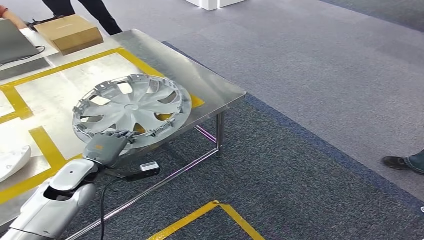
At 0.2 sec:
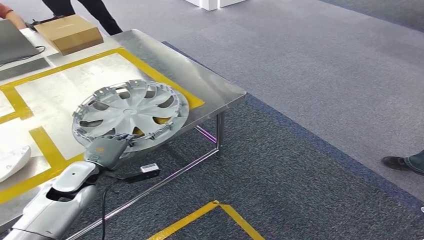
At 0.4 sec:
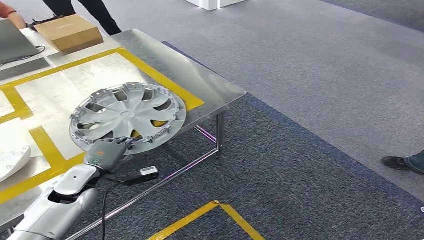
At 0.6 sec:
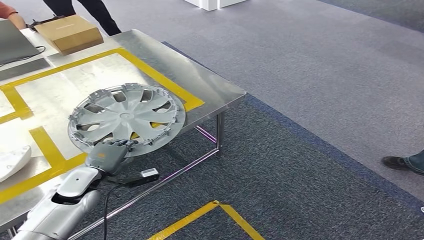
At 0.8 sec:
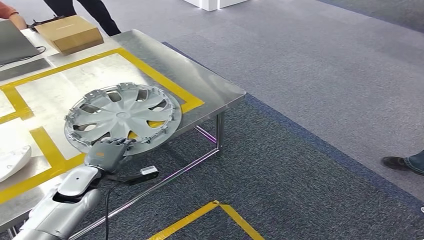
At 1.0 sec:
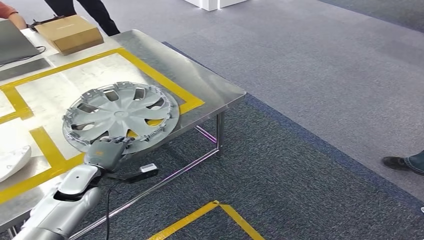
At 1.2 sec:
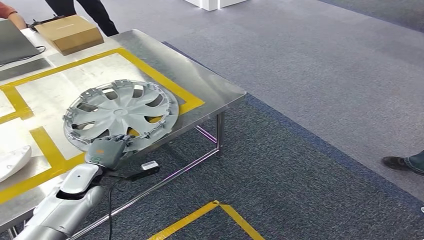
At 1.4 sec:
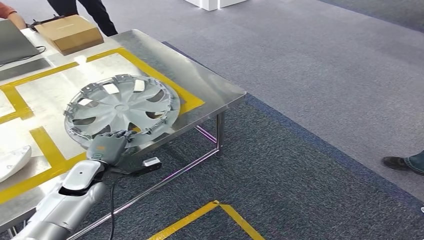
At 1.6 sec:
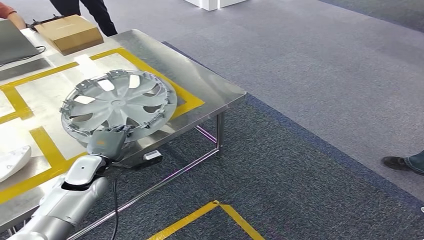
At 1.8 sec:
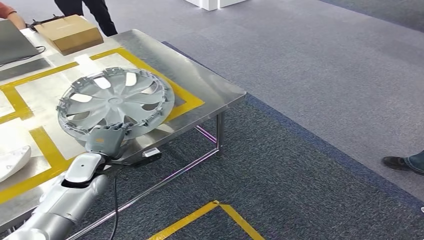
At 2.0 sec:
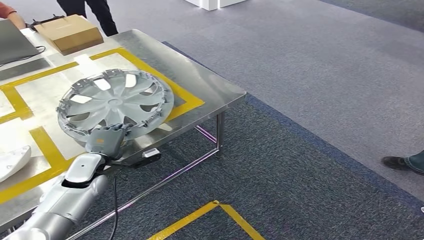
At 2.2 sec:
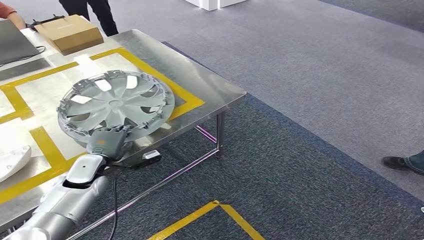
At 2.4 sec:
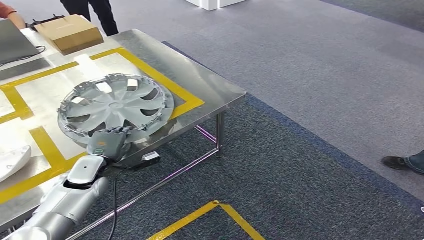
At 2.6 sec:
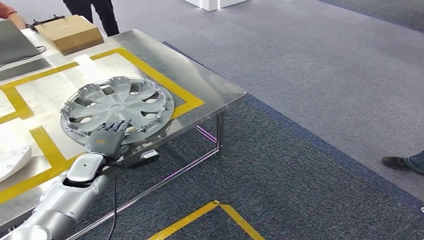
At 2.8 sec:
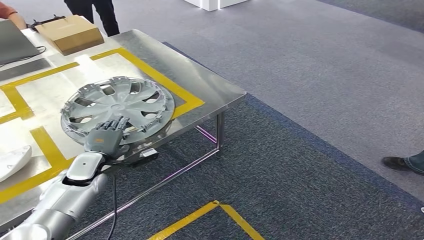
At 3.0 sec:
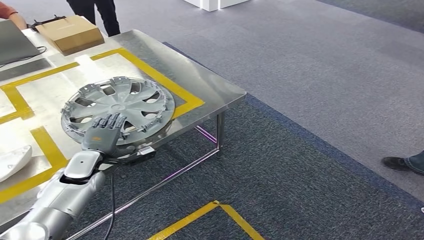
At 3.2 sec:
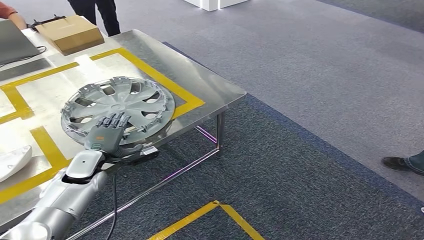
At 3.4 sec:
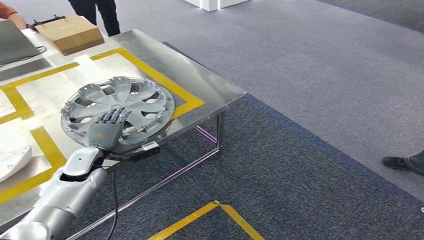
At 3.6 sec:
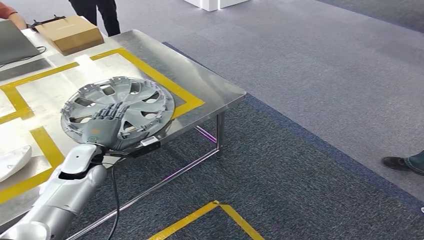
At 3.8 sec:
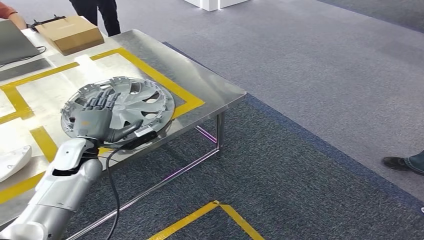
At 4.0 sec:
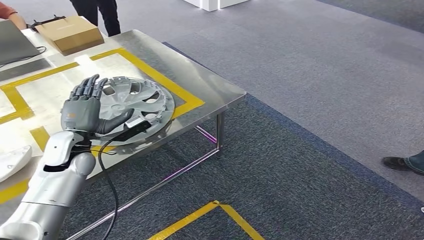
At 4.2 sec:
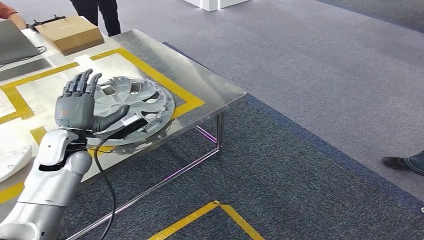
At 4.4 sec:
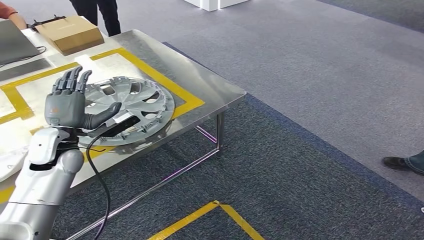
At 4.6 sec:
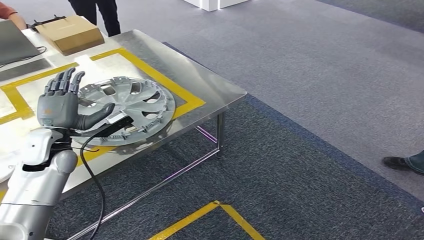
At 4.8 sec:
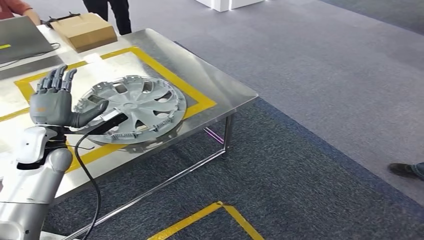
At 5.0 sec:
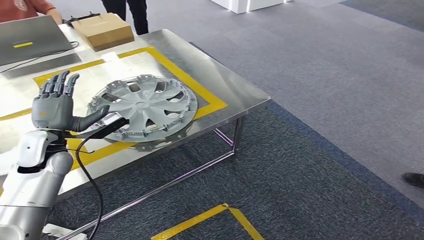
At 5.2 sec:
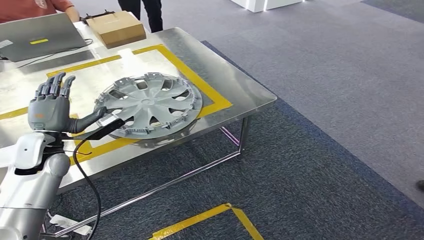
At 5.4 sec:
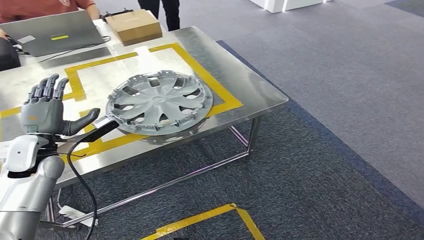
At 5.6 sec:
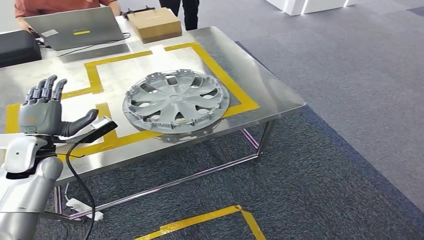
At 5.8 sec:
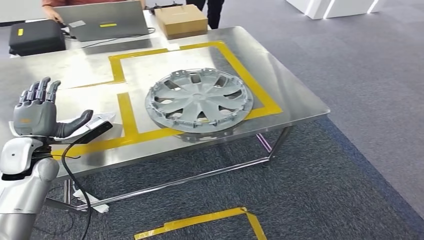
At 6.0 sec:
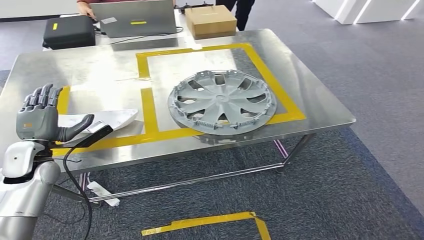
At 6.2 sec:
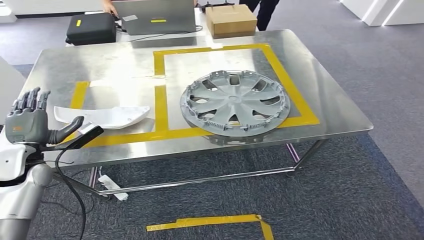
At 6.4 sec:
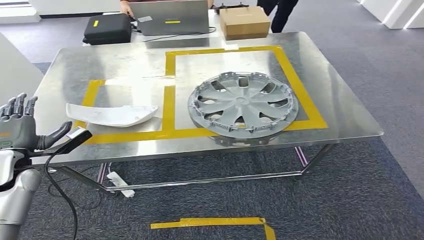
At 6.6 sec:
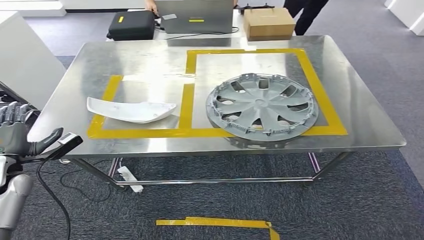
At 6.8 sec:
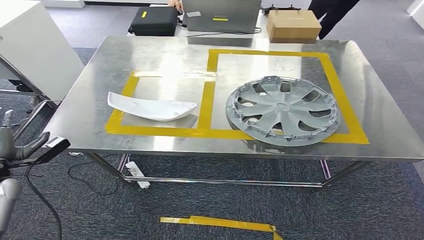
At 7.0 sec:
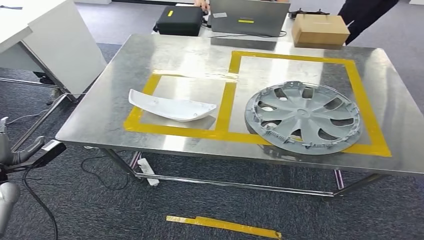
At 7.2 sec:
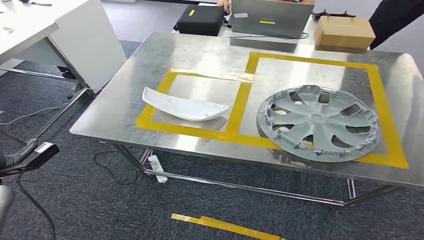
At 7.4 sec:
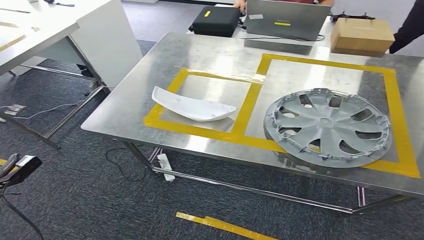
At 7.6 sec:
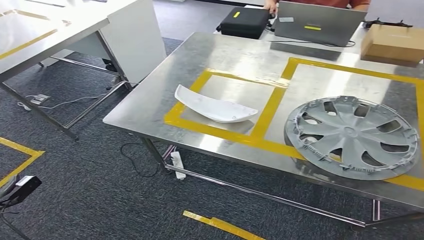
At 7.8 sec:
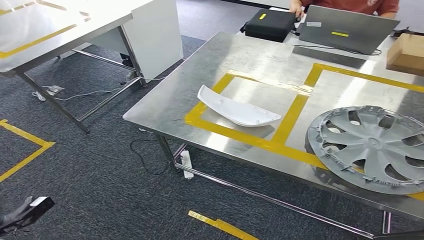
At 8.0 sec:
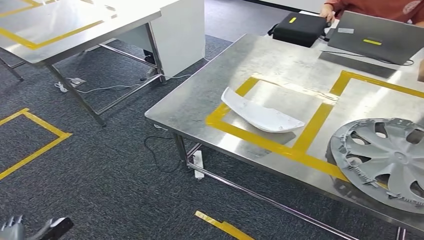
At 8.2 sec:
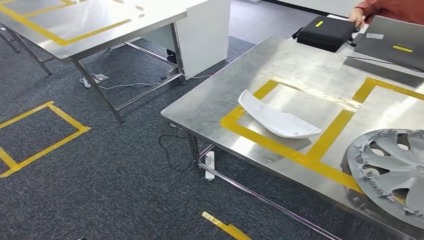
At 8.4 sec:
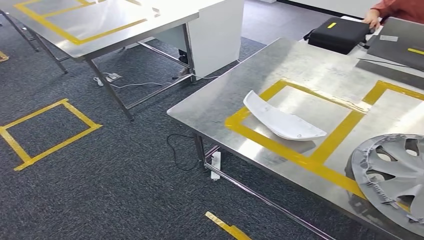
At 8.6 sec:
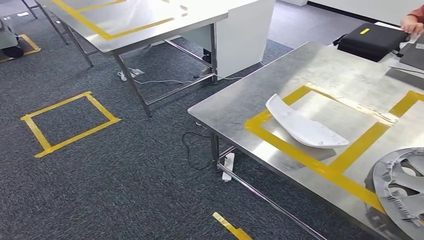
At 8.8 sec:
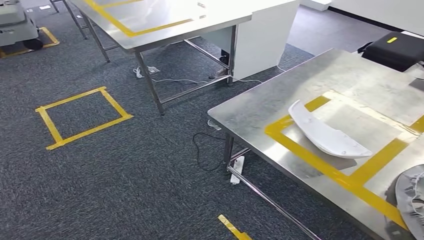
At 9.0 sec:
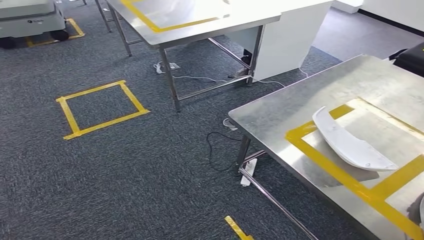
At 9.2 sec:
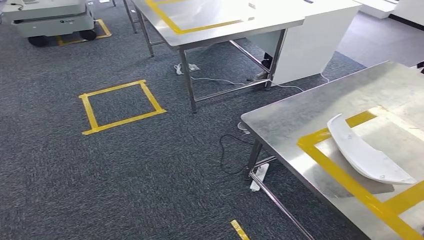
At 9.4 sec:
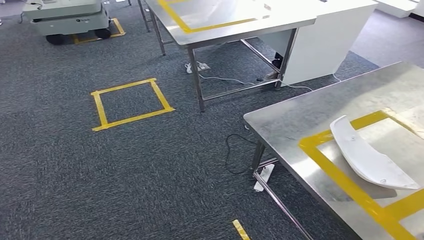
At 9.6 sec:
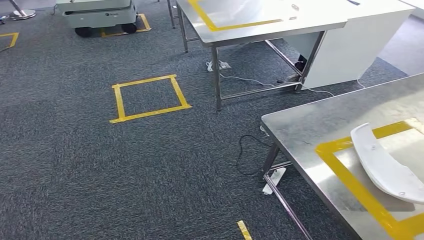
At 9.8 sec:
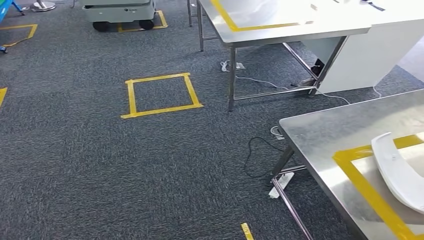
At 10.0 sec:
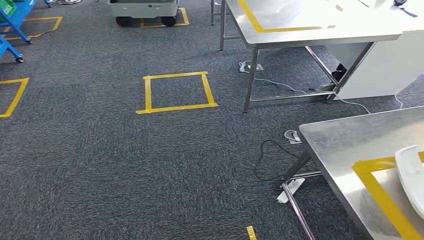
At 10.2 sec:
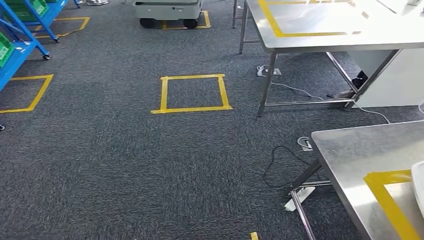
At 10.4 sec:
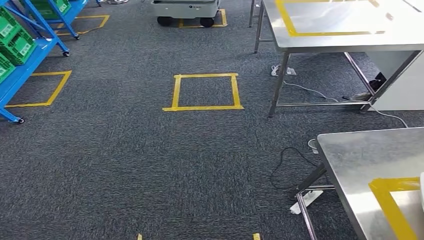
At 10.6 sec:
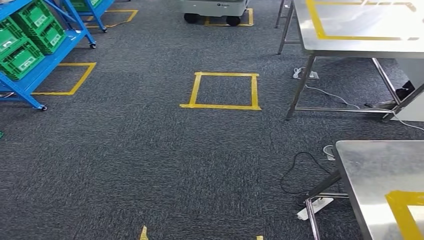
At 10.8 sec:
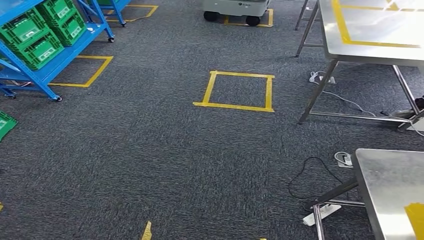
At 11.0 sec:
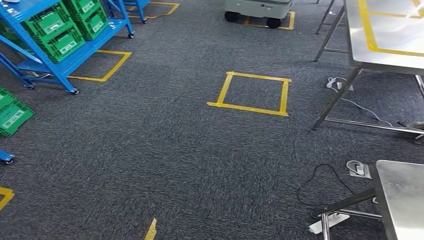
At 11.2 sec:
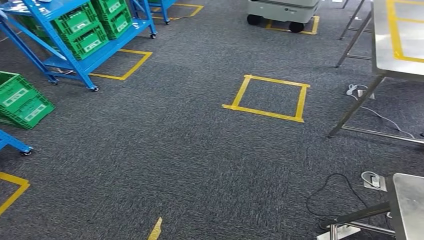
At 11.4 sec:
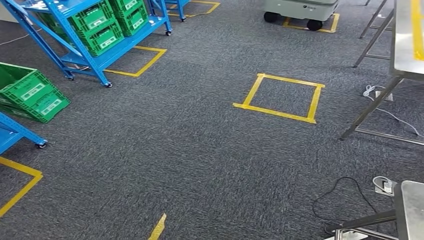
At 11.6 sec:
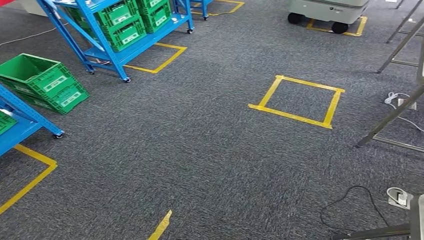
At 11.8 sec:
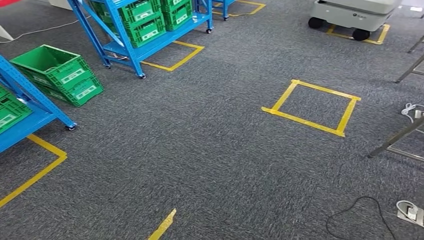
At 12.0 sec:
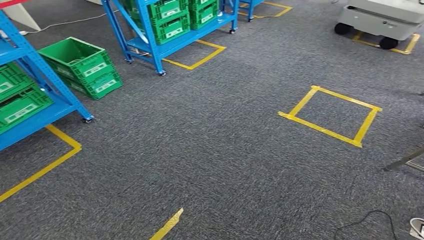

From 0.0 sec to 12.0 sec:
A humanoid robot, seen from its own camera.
Step, from 0.0 sec to 5.2 sec: Insert the small component into the corresponding slot on the workbench.
From 0.0 sec to 3.0 sec: There are only small adjustments of the hands.
From 3.0 sec to 4.4 sec: The left hand is displaced upward by approximately 10 cm.

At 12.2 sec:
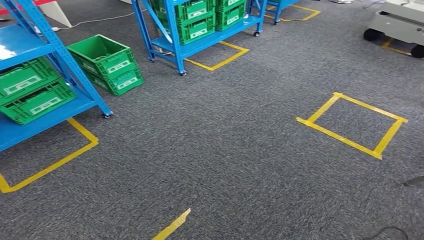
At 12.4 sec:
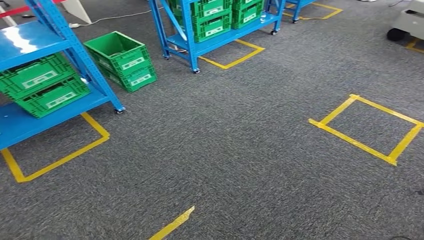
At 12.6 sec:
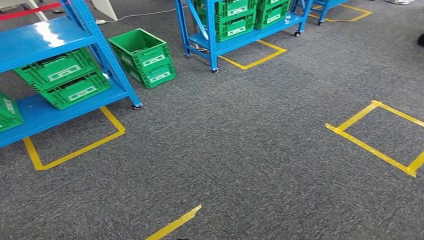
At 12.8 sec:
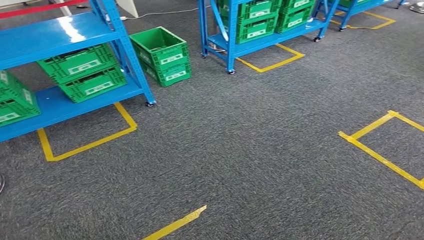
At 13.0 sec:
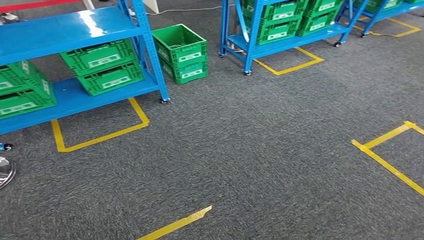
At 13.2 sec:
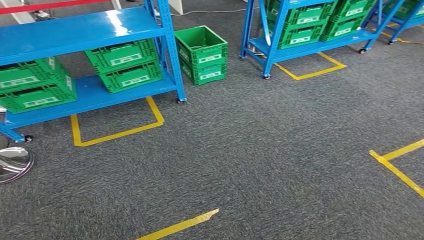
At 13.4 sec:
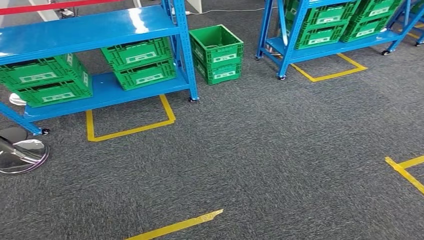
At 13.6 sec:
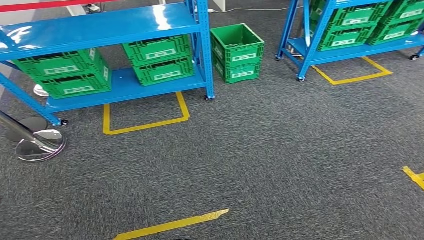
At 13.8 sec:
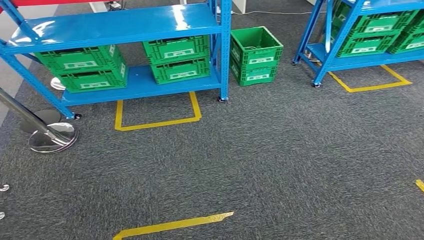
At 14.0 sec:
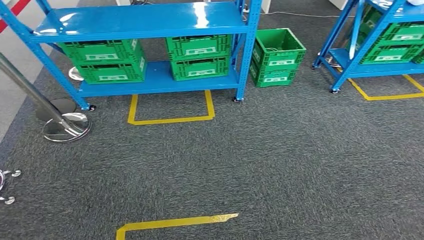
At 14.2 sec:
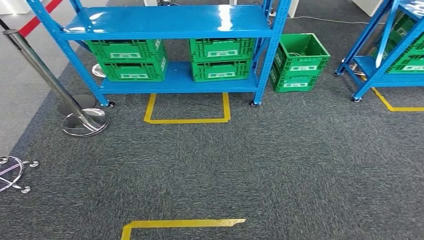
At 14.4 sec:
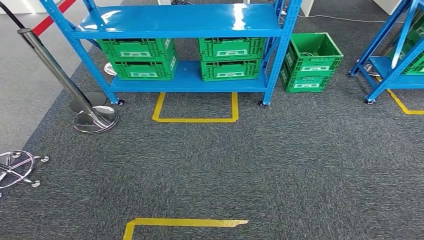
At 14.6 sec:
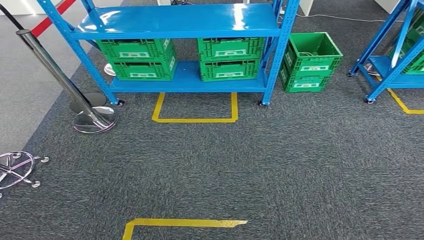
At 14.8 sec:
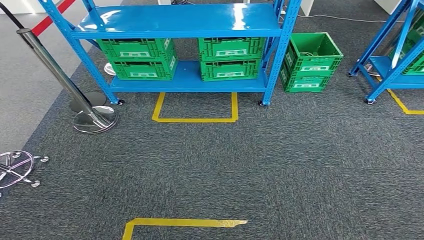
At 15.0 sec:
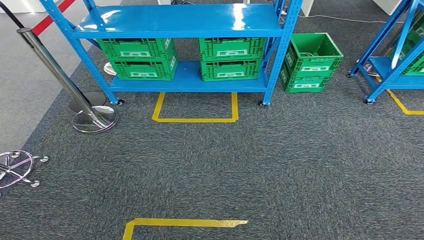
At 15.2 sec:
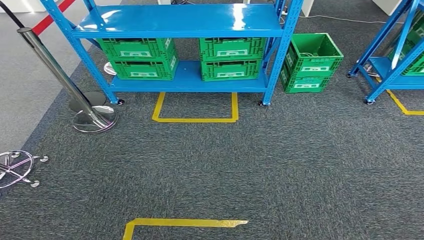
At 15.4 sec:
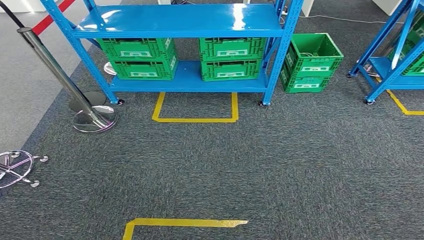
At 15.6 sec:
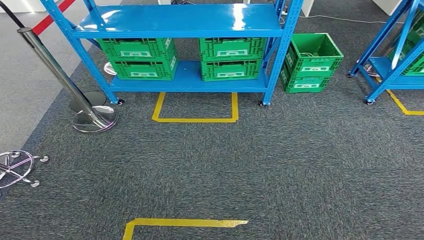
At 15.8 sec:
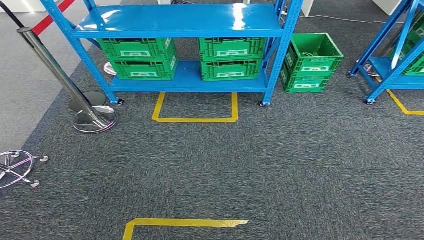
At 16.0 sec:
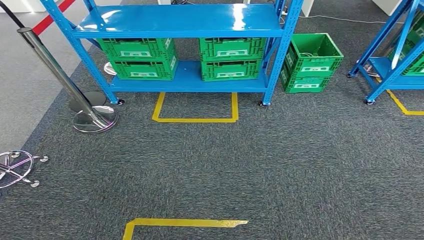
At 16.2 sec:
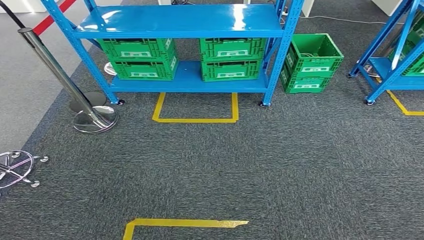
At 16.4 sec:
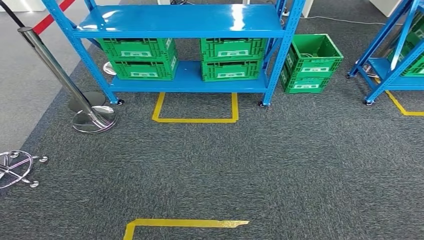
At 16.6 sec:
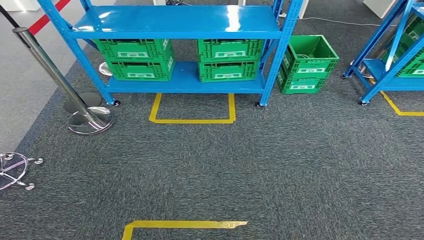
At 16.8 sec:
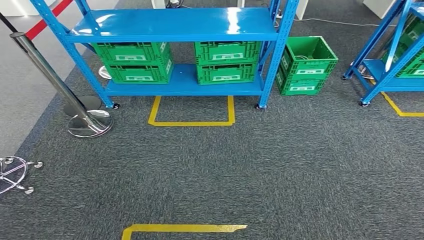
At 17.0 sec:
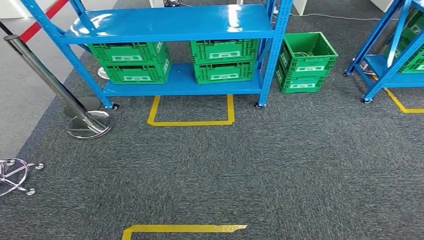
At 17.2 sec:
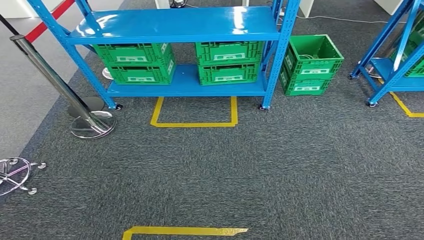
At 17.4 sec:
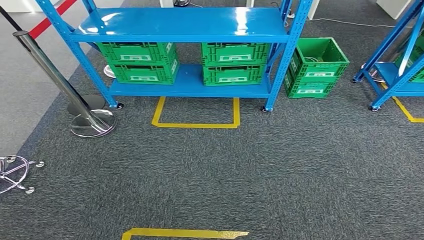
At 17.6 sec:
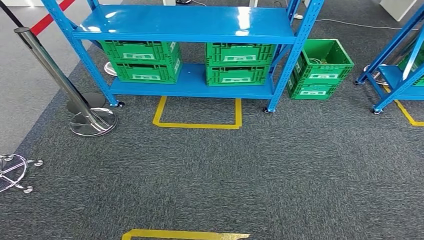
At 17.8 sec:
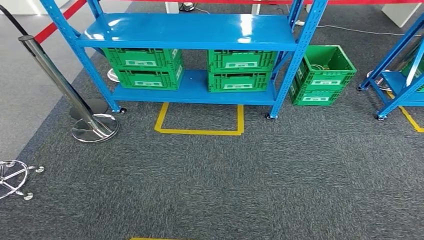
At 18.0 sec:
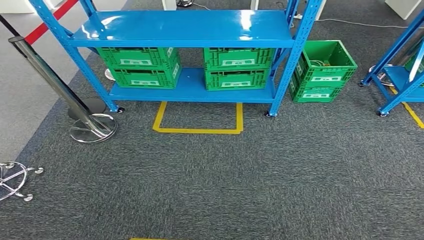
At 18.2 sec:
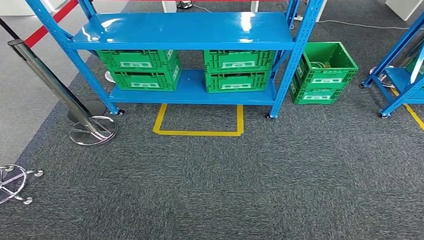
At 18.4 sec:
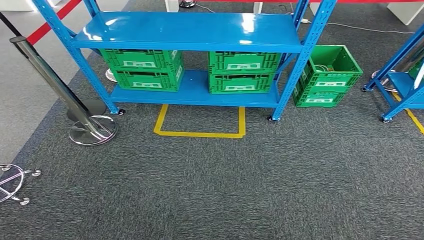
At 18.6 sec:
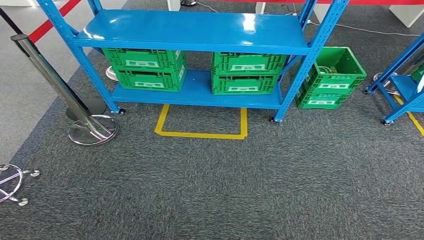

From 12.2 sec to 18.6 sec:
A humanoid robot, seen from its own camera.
From 15.4 sec to 17.0 sec: Both hands stay about where they are.
